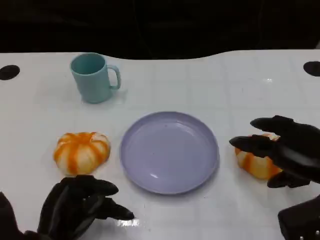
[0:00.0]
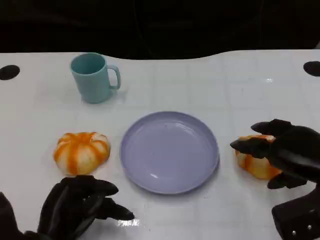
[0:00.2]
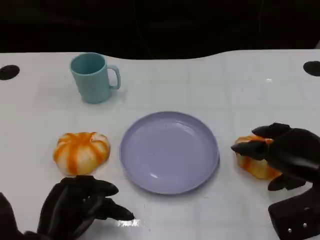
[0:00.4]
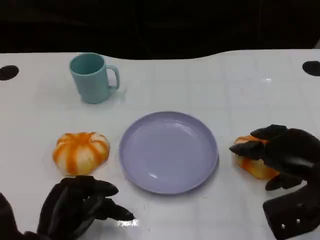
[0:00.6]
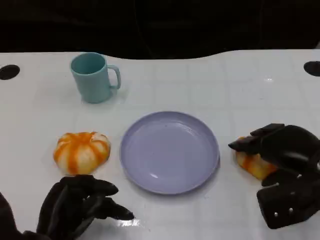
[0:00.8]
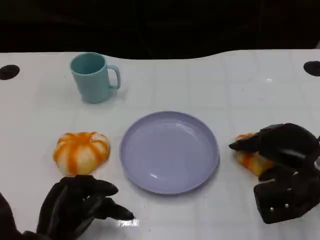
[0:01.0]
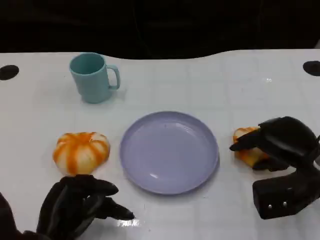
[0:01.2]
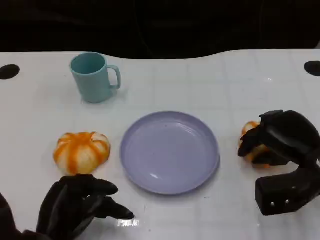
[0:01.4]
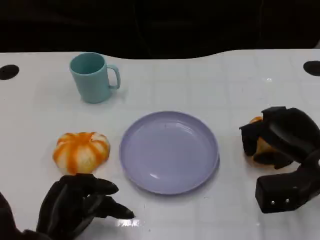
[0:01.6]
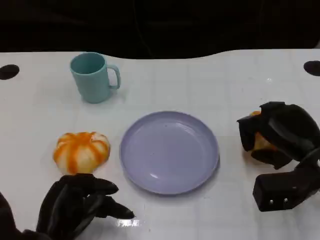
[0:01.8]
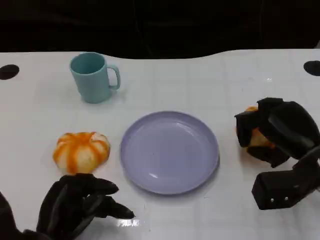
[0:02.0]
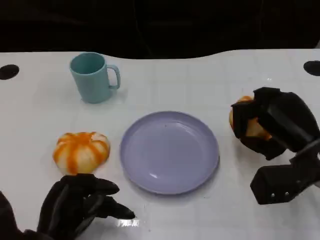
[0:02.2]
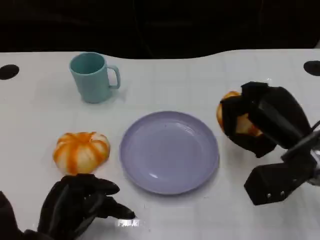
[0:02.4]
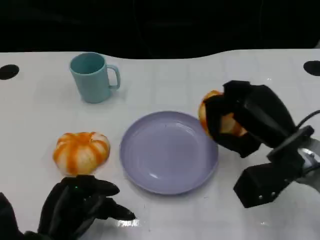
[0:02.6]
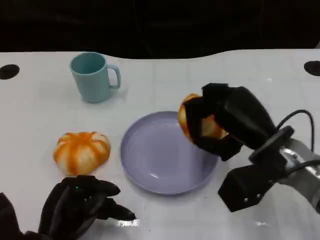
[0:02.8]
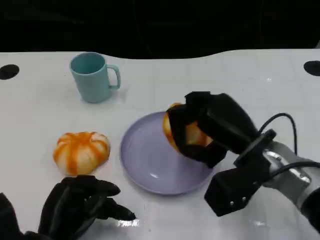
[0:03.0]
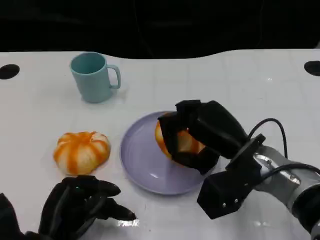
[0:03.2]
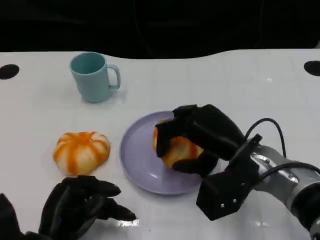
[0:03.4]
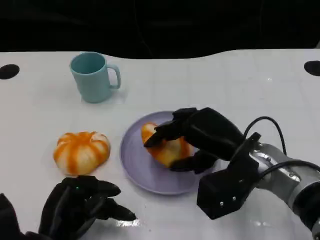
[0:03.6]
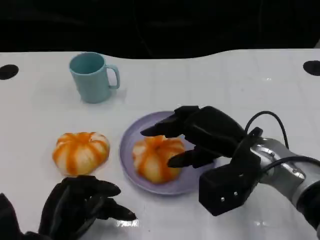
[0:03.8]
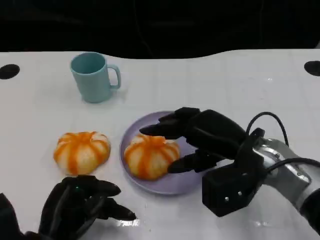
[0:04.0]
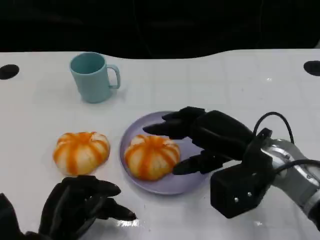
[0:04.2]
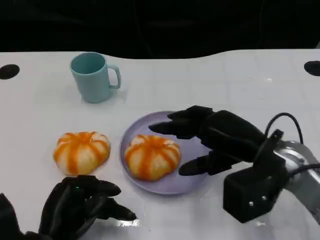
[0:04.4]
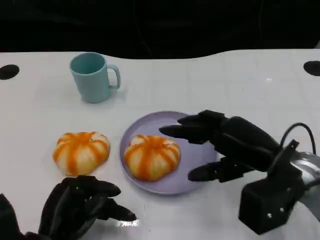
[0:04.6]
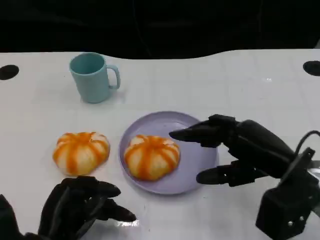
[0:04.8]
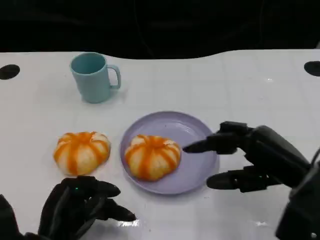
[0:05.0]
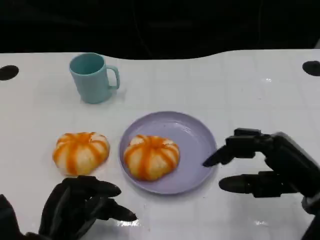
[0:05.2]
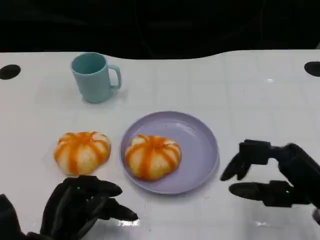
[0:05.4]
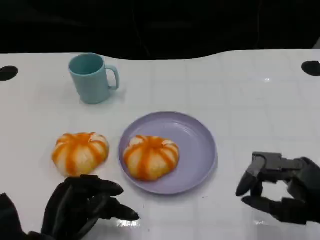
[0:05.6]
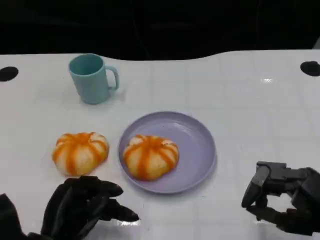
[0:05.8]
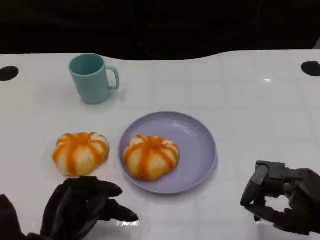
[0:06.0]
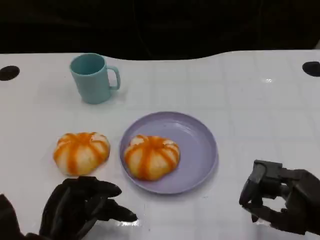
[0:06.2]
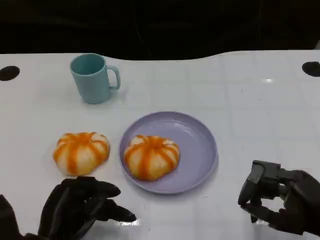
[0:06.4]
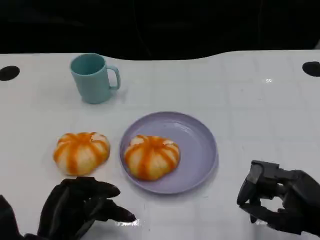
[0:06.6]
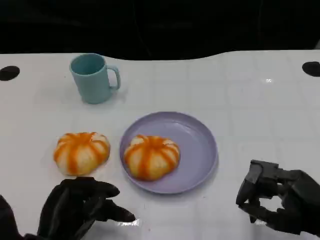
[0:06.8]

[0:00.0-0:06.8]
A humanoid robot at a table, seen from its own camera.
Task of the whole recording: Grasp the bread from the table and place it into the plate.
0:00.0 to 0:01.4: The right hand shifts by approximately 5 cm.
0:01.4 to 0:02.8: The right hand is displaced to the left by about 10 cm.
0:04.0 to 0:05.4: The right hand moves to the right and backward, some 15 cm.

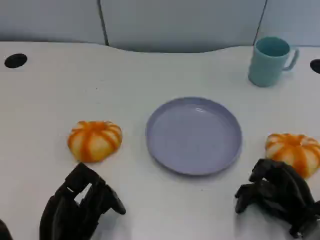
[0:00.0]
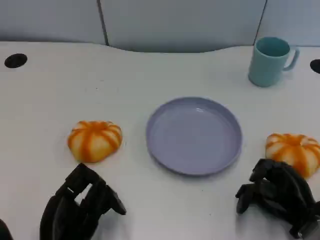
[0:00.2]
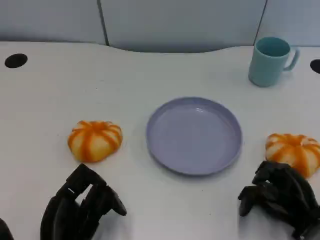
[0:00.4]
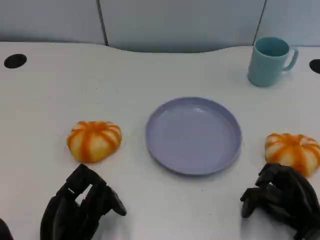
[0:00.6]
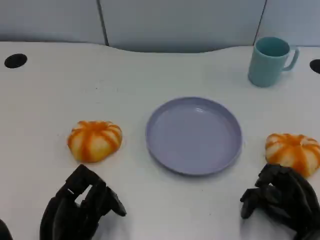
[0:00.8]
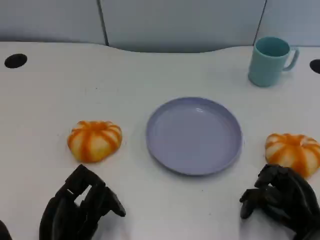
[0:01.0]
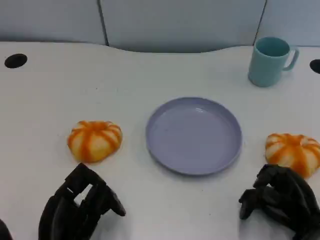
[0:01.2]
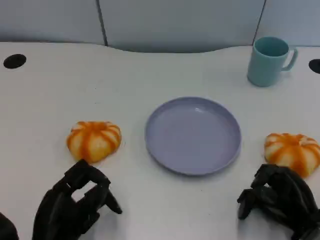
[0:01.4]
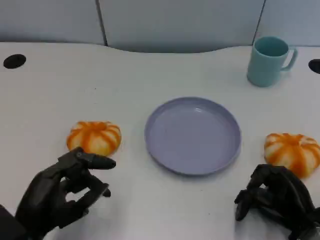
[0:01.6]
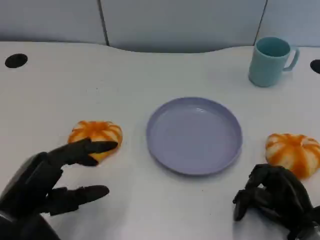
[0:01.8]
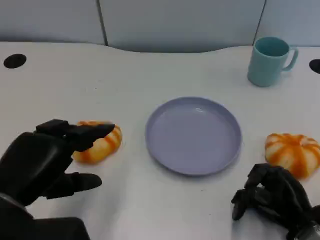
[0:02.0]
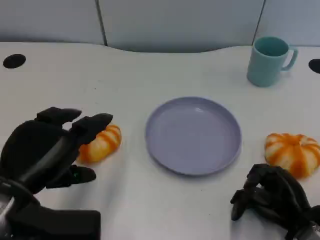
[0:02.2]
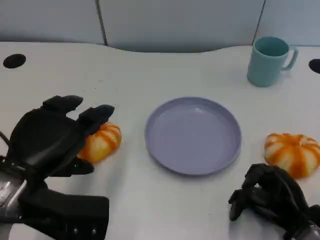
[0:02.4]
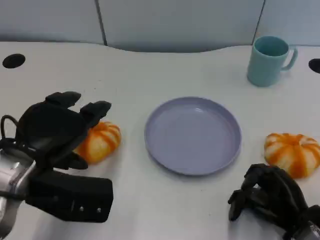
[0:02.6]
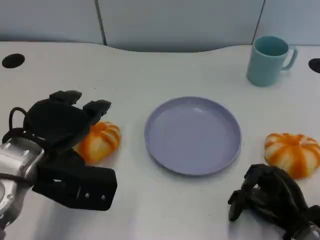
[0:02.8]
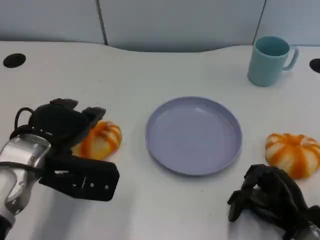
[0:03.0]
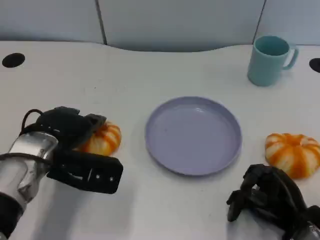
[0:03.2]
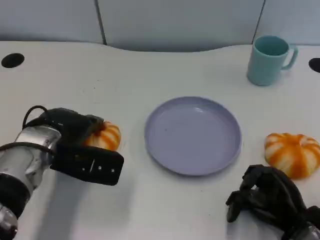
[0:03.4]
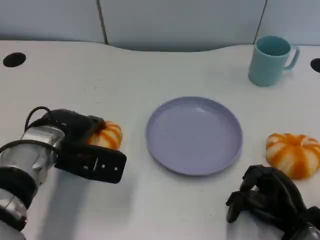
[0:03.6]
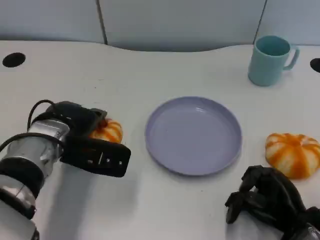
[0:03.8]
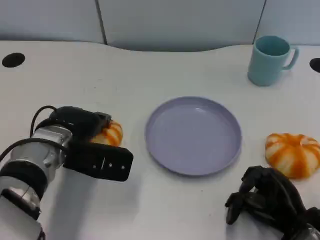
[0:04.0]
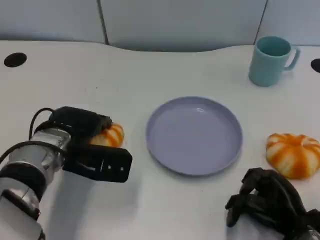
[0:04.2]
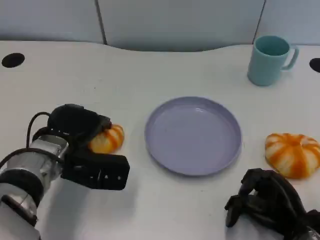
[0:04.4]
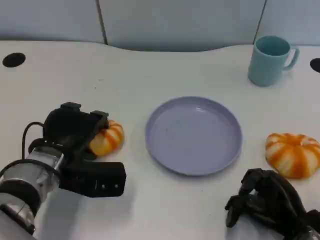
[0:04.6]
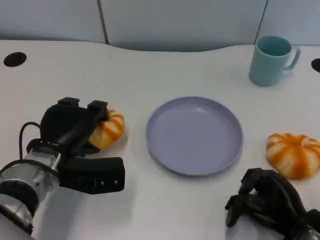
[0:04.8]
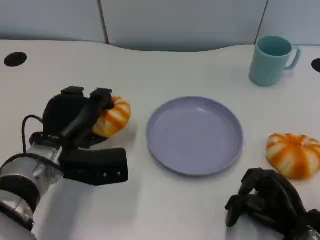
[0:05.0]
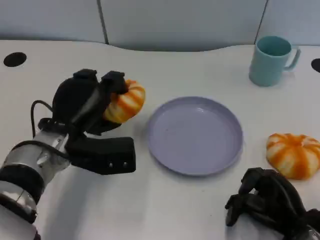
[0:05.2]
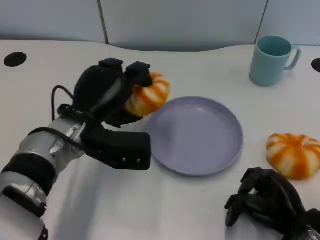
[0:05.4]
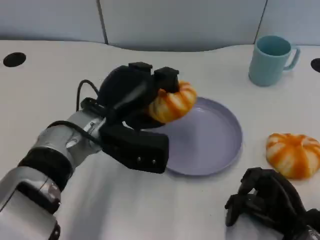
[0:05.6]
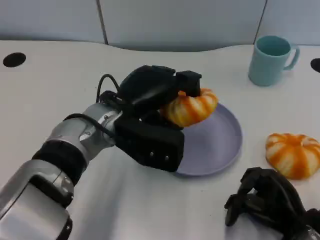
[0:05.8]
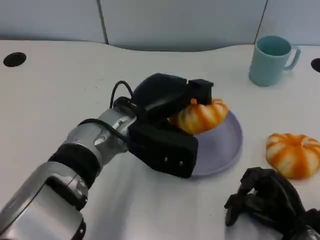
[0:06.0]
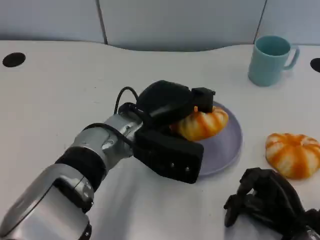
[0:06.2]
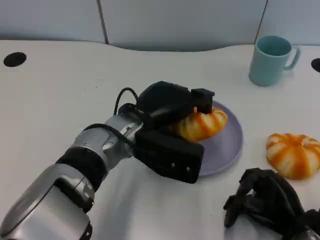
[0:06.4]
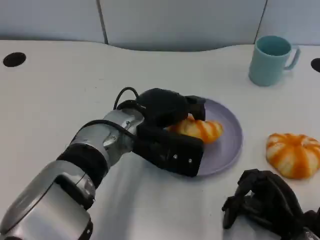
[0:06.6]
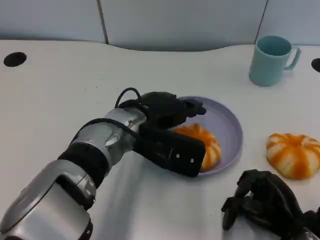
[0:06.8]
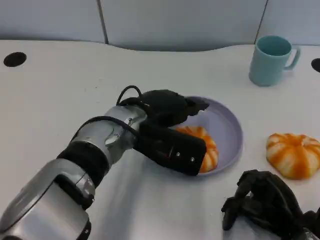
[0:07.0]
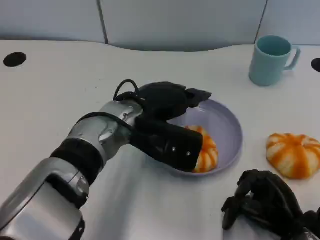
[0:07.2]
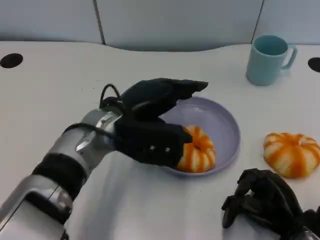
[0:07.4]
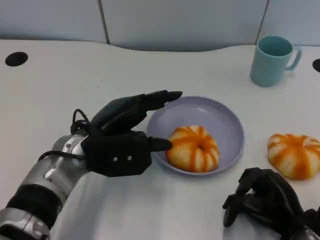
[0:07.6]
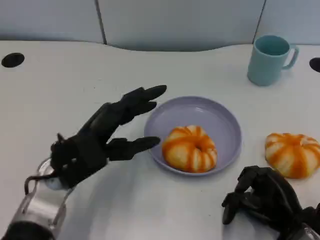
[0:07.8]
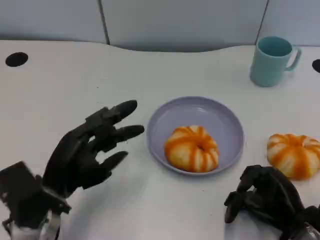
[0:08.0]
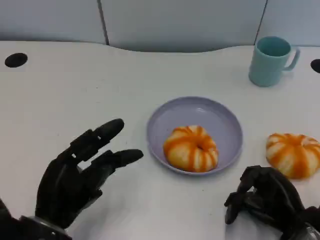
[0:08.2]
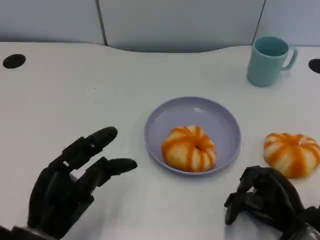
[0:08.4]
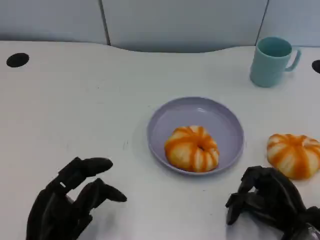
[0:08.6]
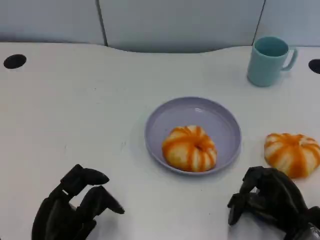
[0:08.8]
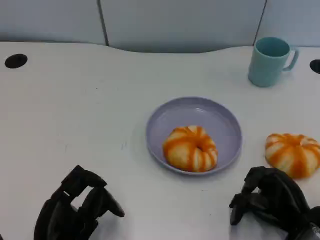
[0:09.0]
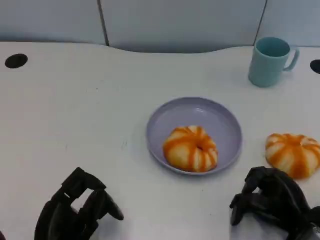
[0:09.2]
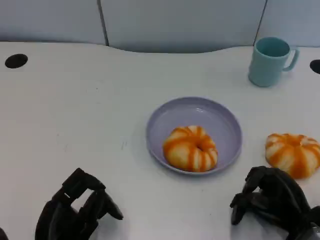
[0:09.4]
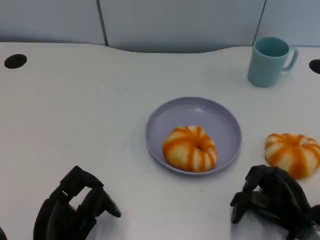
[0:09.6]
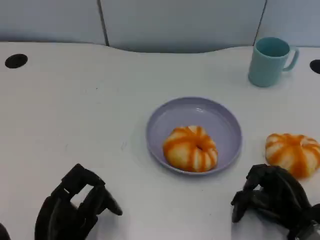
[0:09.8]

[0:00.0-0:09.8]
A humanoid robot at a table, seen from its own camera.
Task of the whole recording: Grasp the bread from the table and place it into the plate.
0:00.0 to 0:01.4: The hands stay close to where they were, moving slightly.
0:01.4 to 0:02.8: The left hand is displaced forward and upward by some 15 cm.
0:02.8 to 0:04.2: The left hand moves downward and forward, some 10 cm.
0:04.2 to 0:05.6: The left hand travels to the right by some 5 cm.
0:07.0 to 0:08.4: The left hand goes roughly 20 cm backward, to the left and downward.
0:08.4 to 0:09.8: The hands move only a little.

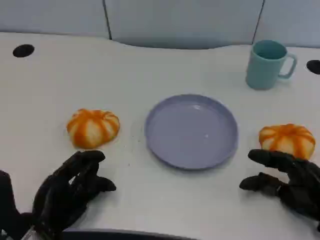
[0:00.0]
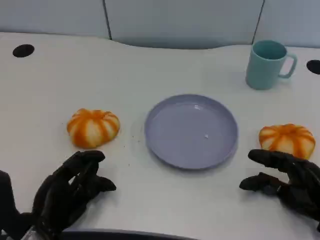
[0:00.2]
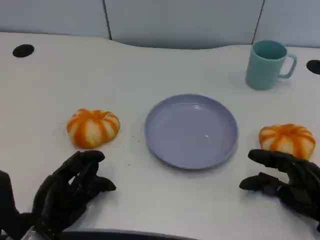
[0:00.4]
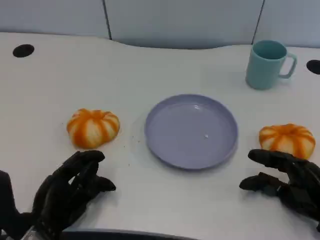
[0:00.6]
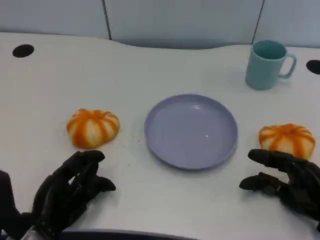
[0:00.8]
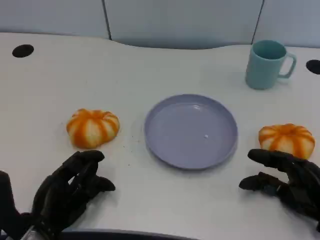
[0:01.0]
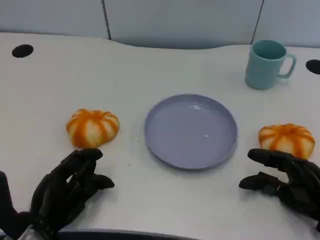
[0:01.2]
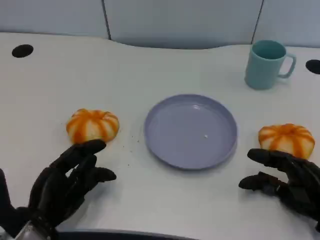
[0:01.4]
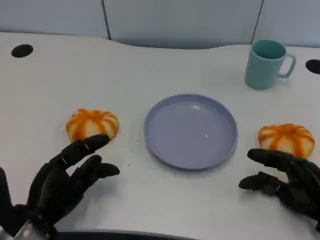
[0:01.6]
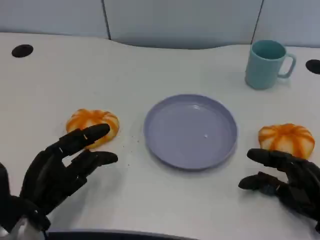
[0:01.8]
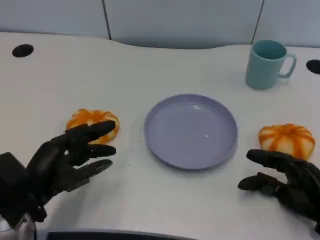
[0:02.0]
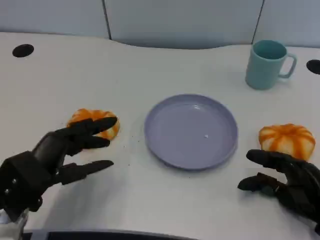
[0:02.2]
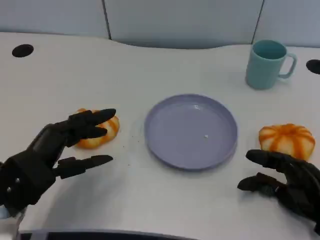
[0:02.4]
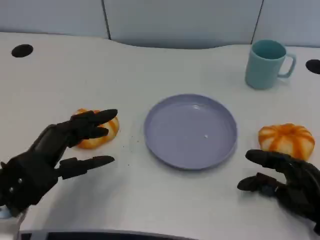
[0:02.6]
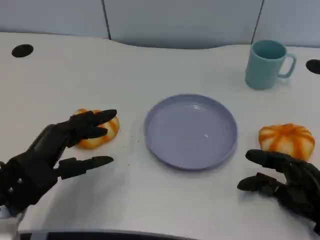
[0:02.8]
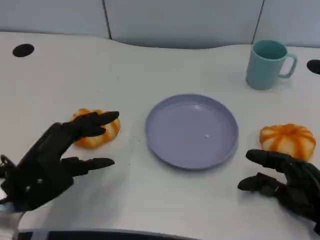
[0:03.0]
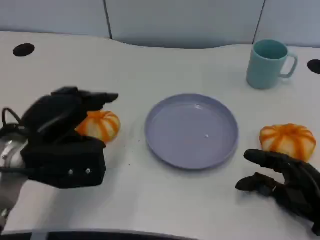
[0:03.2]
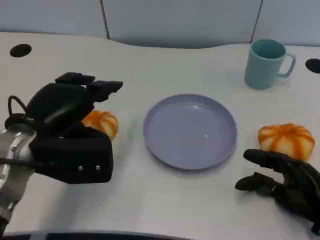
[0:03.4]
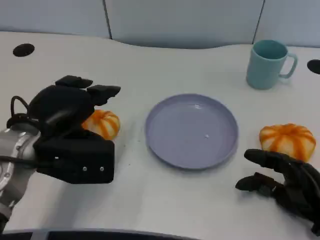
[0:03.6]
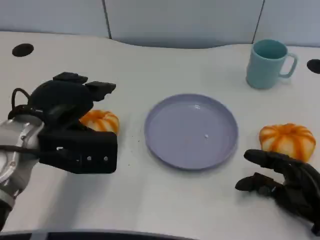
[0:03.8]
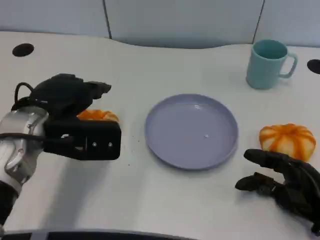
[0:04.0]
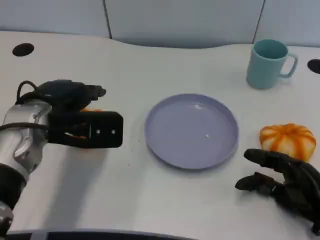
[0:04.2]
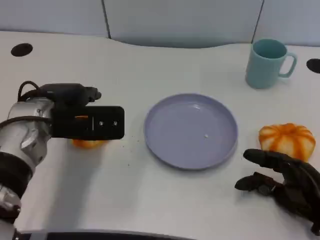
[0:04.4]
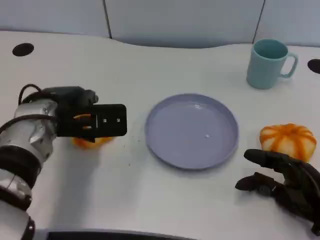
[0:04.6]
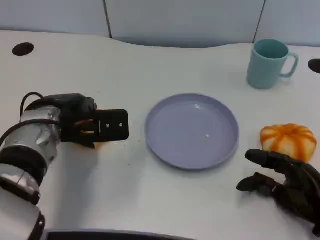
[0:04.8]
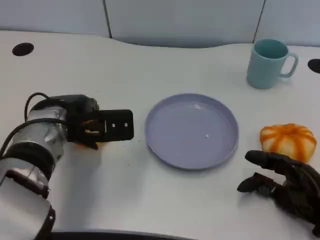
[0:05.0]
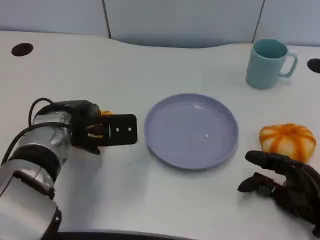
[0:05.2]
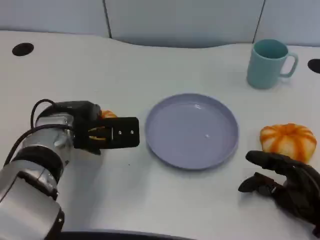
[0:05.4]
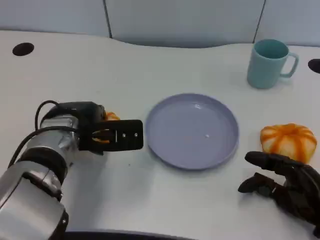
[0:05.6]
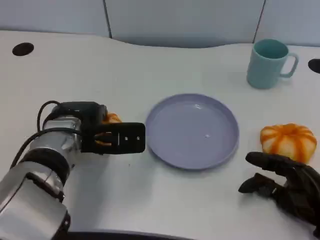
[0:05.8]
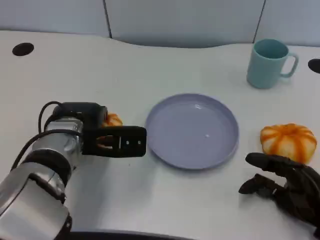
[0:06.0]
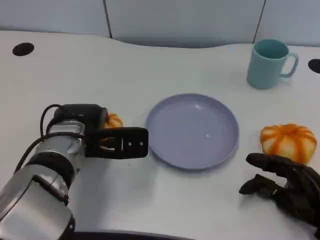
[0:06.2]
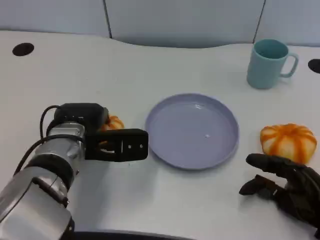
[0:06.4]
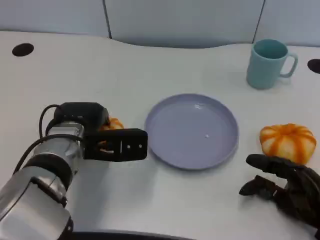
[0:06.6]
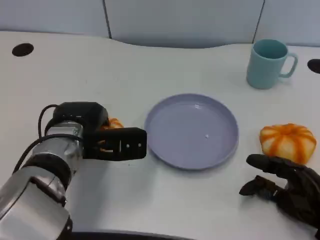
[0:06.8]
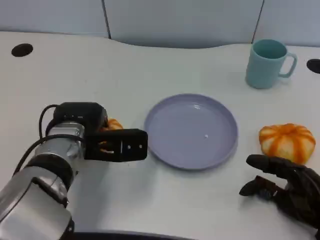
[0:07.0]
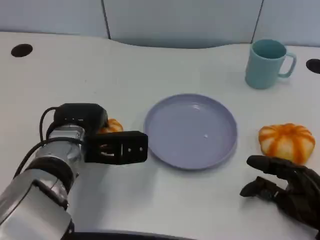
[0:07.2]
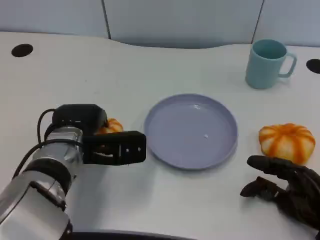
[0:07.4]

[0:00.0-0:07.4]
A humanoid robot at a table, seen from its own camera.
Task of the whole recording: Grasp the bread from the table and place it into the plate.
0:00.0 to 0:01.4: The hands stay close to where they were, moving slightly.
0:01.4 to 0:03.0: The left hand shifts roughly 10 cm upward.
0:03.0 to 0:04.4: The left hand is displaced forward by some 10 cm.
0:04.4 to 0:06.0: The left hand moves some 5 cm.
0:06.0 to 0:07.4: The hands move only a little.
